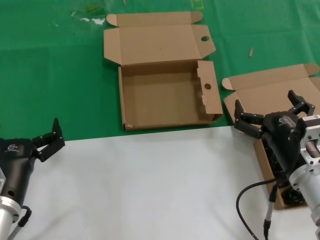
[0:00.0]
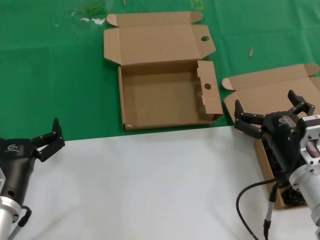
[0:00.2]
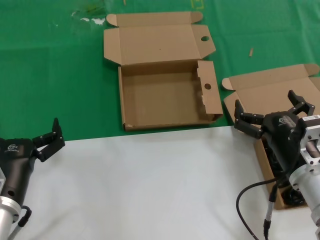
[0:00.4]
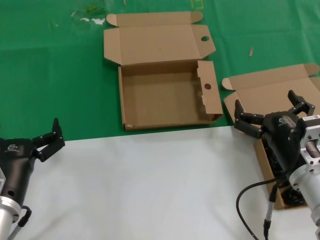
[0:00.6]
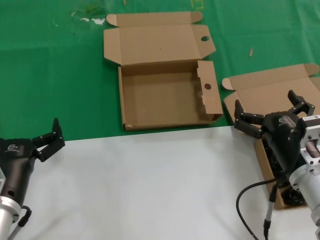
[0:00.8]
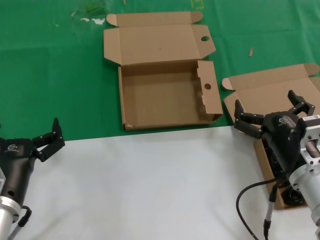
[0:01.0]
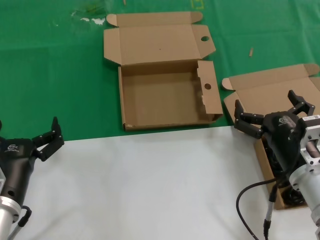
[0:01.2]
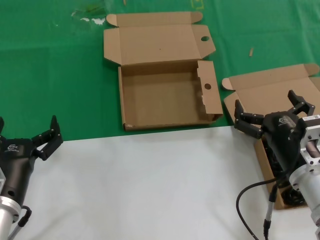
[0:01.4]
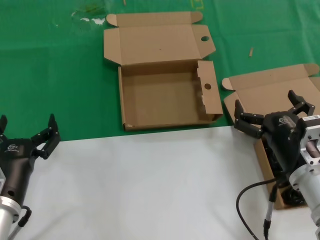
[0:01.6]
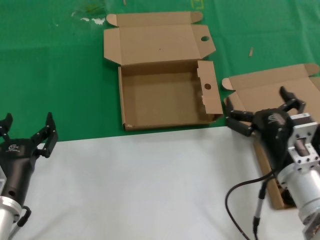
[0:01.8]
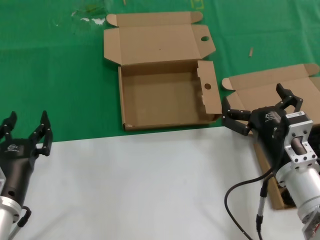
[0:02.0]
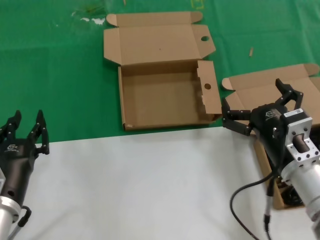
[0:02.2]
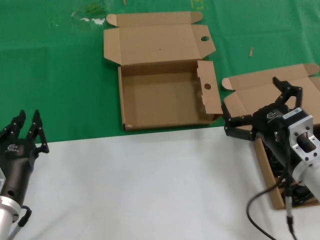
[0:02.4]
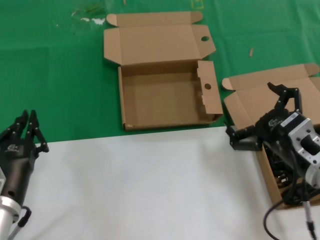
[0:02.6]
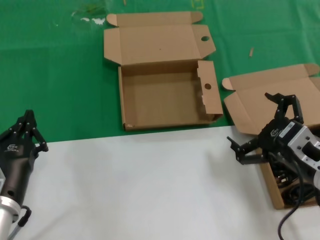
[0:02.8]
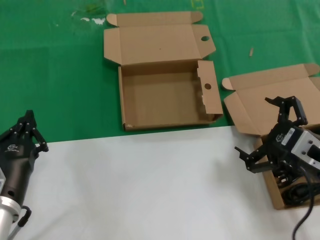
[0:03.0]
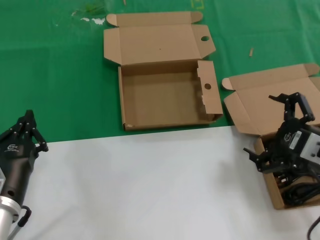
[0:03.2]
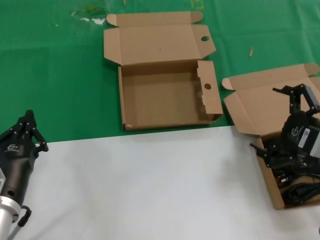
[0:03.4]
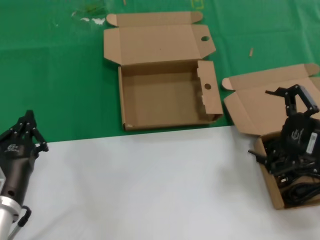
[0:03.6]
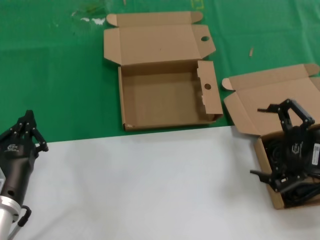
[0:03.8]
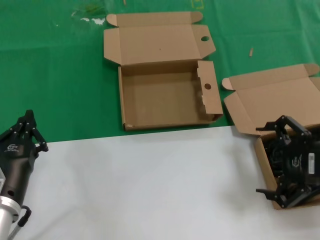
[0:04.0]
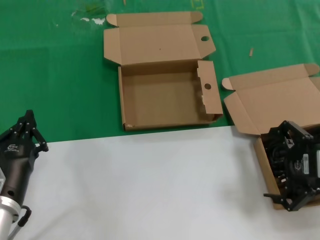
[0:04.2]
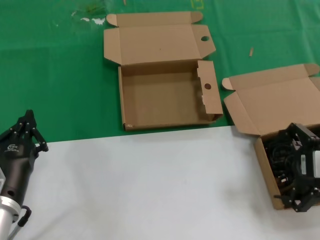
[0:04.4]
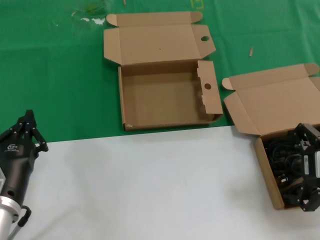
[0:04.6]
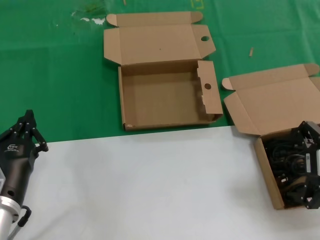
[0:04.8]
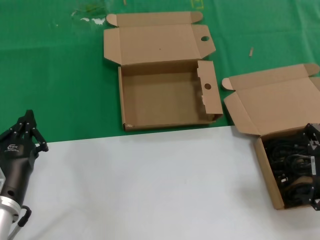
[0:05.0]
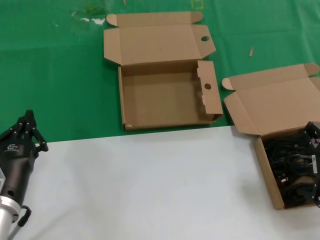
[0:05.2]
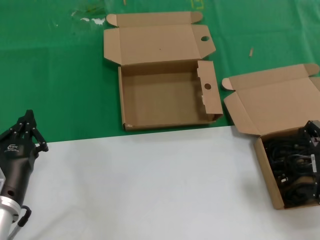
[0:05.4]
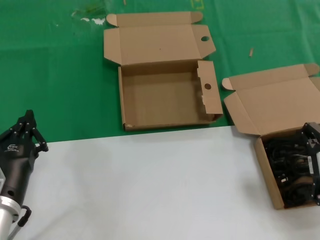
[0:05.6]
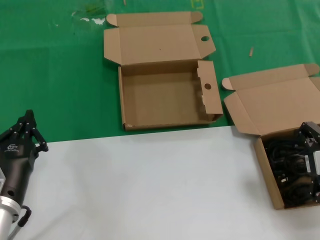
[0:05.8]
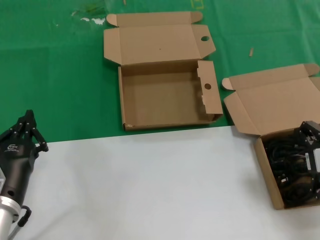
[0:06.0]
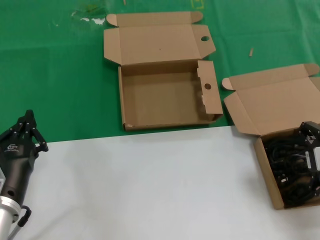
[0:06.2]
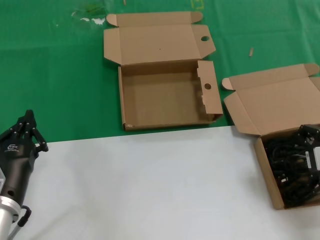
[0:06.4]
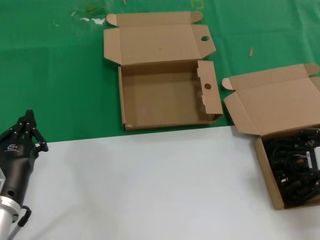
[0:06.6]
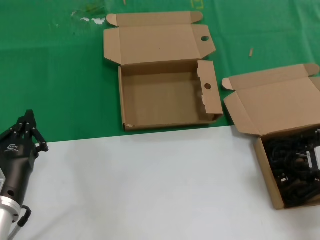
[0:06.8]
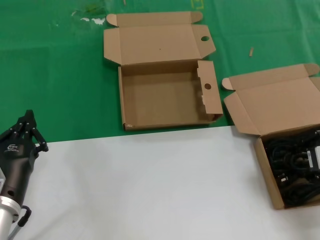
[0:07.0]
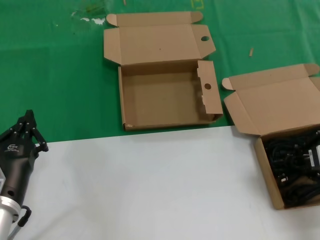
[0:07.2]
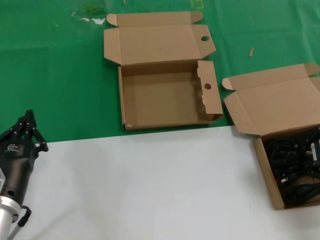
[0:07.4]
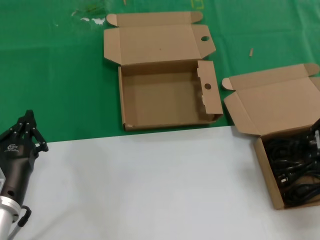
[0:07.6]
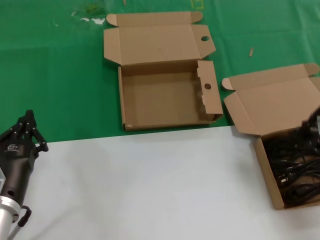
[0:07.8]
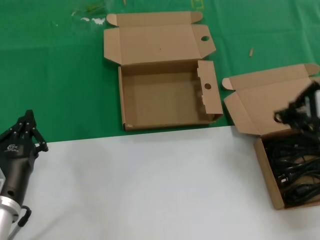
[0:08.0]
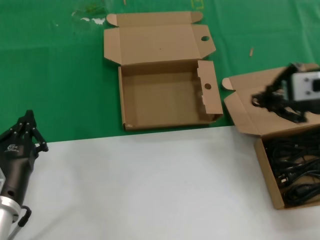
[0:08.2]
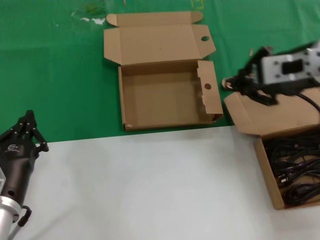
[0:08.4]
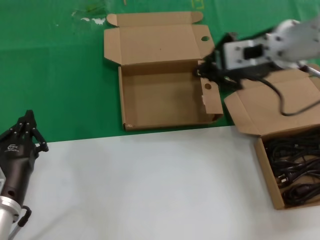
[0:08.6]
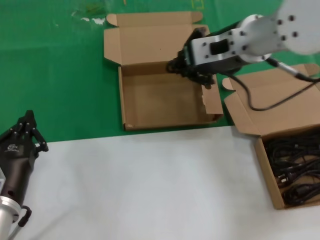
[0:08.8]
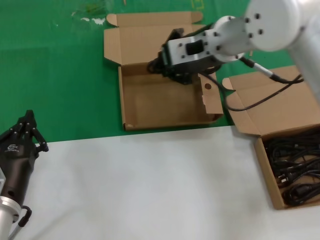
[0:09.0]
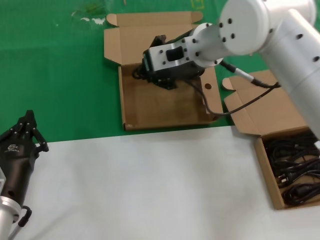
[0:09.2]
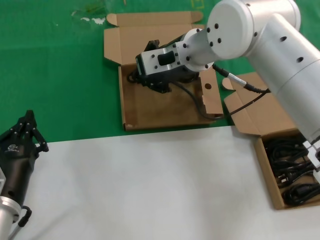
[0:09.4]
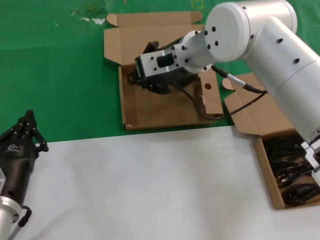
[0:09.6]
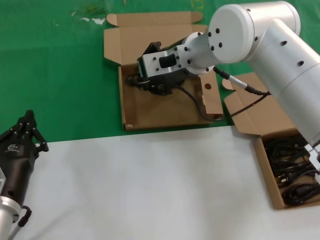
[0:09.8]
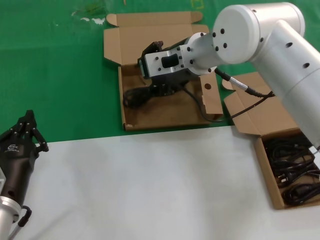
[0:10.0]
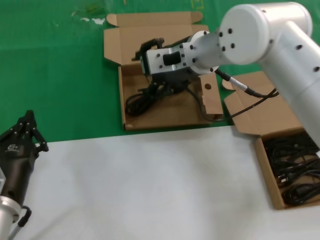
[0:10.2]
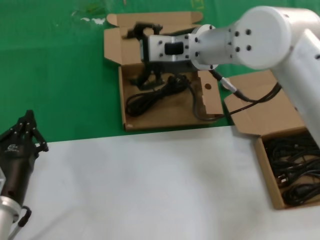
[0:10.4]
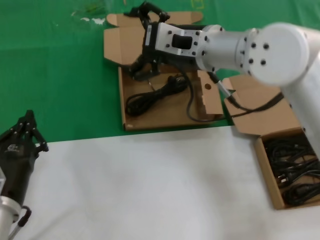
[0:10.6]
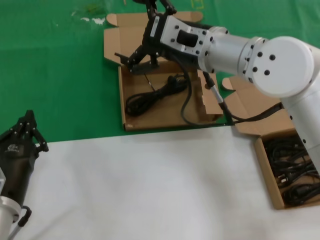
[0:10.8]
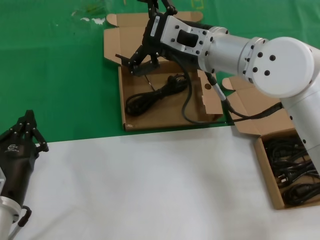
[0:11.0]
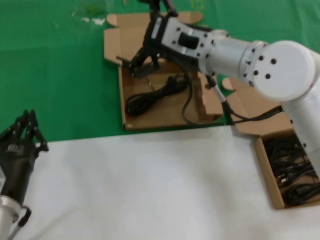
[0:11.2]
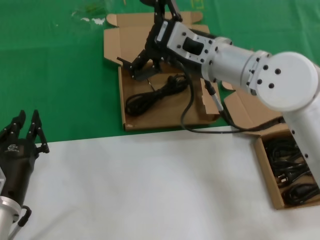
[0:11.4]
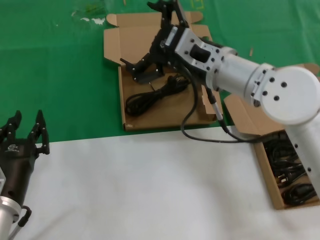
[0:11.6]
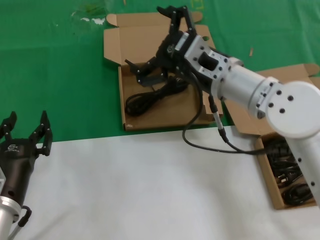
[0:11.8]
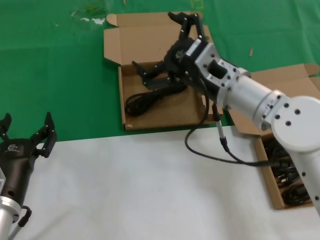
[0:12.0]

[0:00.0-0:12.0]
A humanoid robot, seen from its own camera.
Task of the whole recording: take the parts from the box containing them and put them into an empty box.
Step, 0.0 to 6.6 s: Grasp the data cable.
Step, 6.8 to 10.2 s: Place the data cable in the another box.
0.0 to 1.6 s: The two hands keep their place.
1.6 to 3.0 s: The right hand is displaced upward and to the right by roughly 10 cm.
3.0 to 4.4 s: The right hand moves upward, roughly 5 cm.
4.4 to 6.0 s: The hands make only small movements.
6.0 to 7.6 s: The hands make only small movements.
7.6 to 9.0 s: The right hand heads to the left and forward, covering approximately 25 cm.
10.4 to 12.0 s: The right hand is displaced downward and backward by about 10 cm.

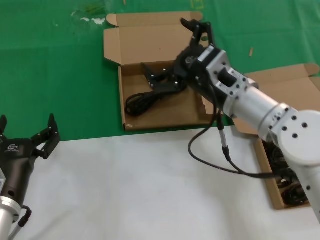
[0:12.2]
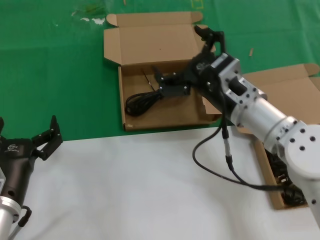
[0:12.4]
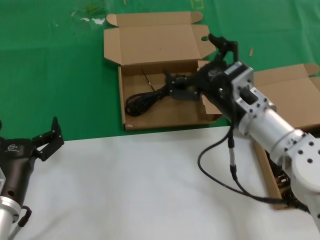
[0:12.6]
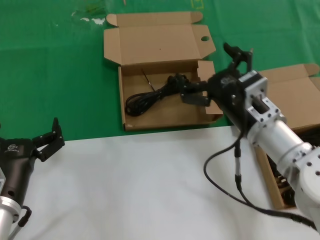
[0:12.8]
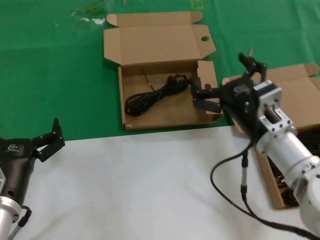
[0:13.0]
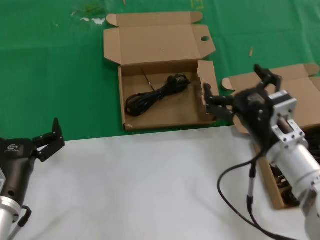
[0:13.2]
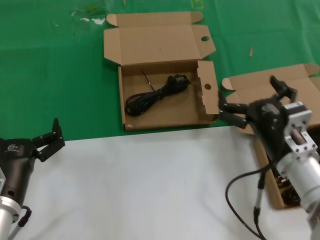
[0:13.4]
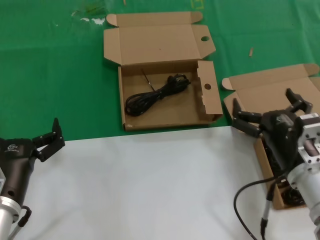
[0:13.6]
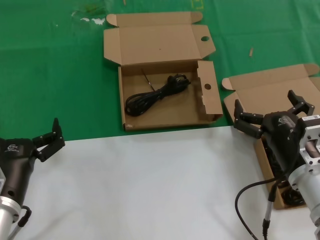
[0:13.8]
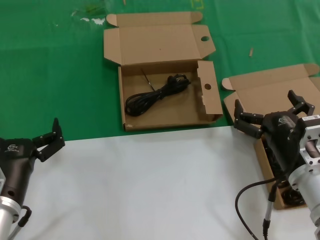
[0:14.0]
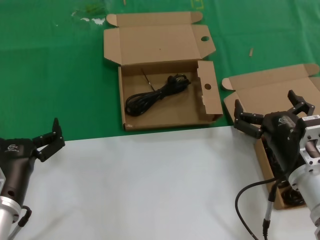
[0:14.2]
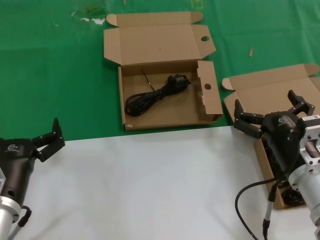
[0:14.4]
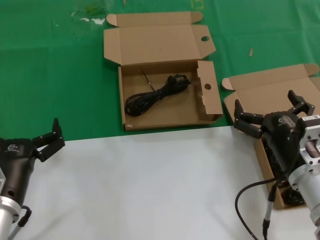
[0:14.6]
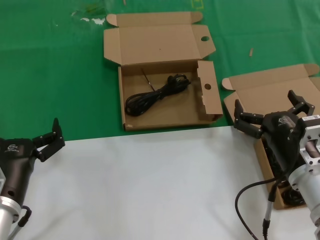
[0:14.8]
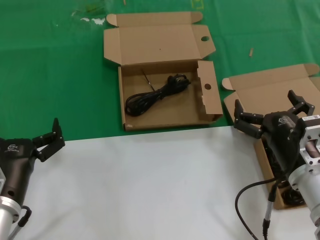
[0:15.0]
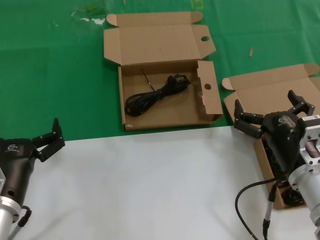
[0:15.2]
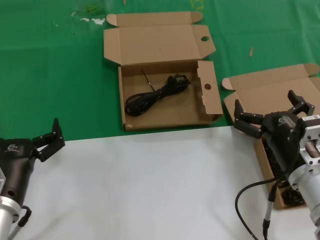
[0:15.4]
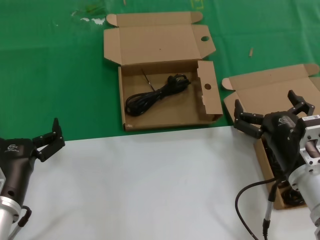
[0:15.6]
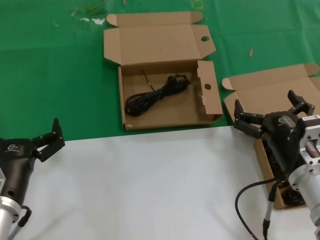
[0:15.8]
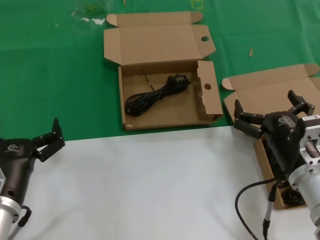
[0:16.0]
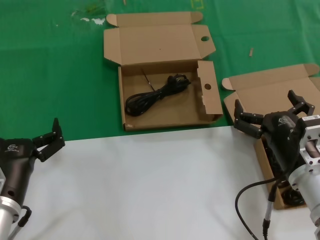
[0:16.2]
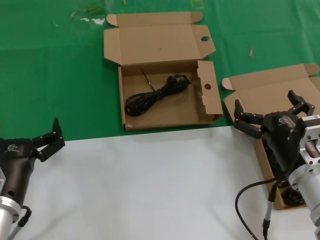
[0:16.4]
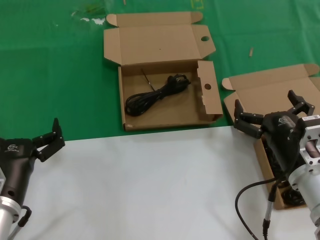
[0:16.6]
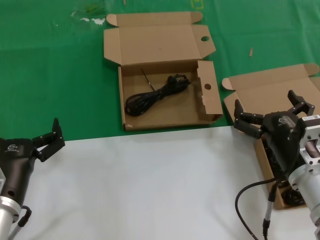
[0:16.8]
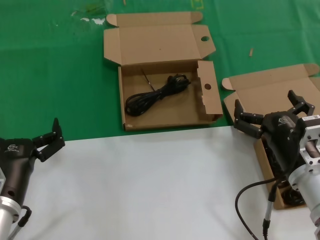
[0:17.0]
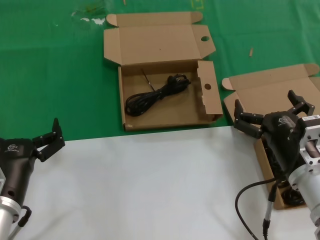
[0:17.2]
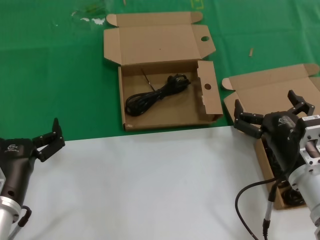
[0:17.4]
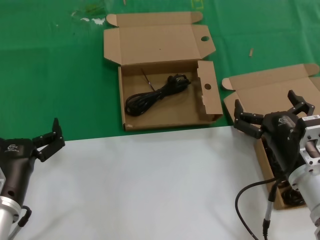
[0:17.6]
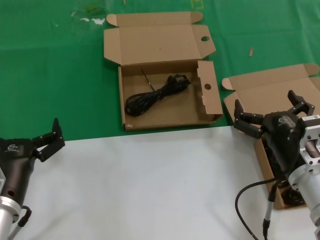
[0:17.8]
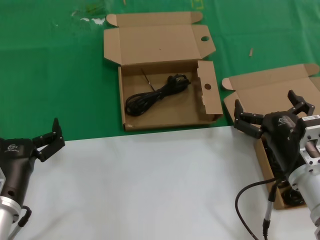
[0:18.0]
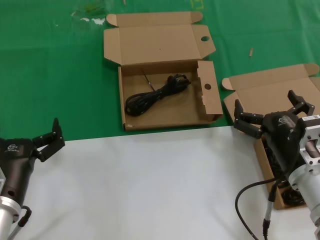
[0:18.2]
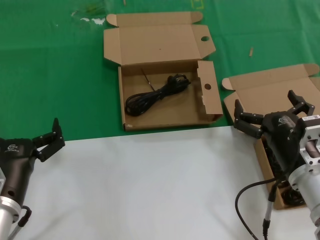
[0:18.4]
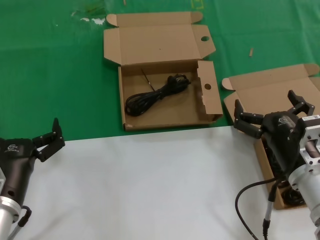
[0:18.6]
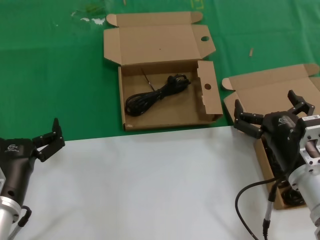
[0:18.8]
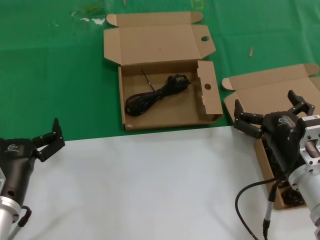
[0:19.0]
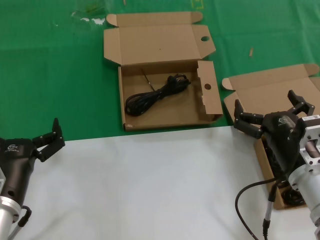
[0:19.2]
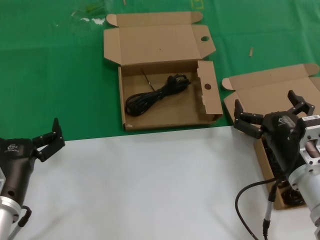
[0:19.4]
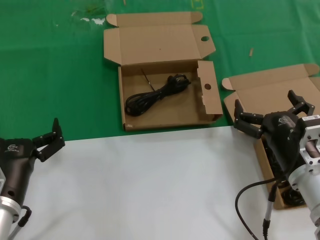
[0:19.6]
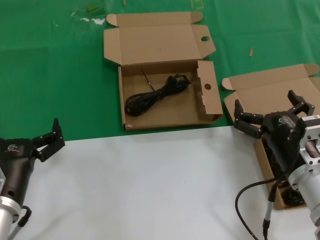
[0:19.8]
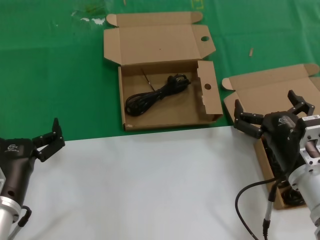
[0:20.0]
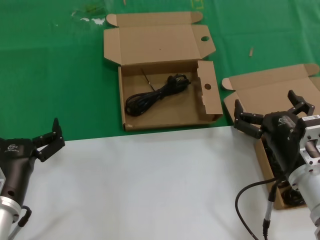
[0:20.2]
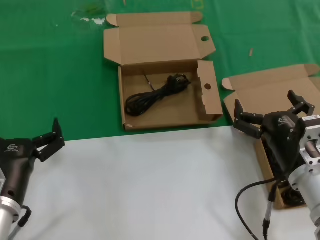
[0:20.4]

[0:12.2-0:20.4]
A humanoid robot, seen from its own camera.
Task of the whole recording: take the parts from the box containing them and put them into an empty box.
12.2 to 13.8 s: The right hand goes roughly 20 cm backward, downward and to the right.
13.8 to 20.4 s: The two hands keep their place.

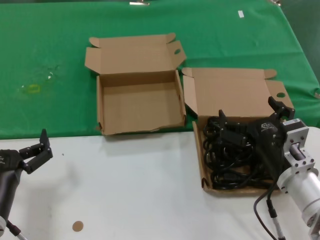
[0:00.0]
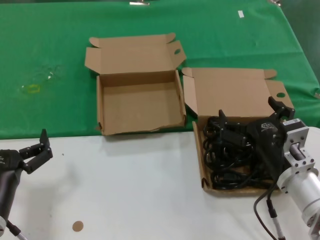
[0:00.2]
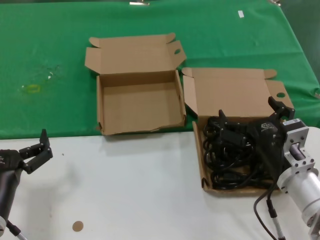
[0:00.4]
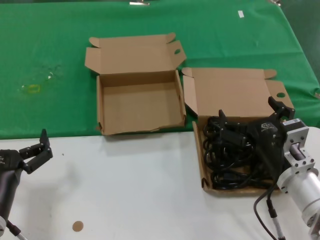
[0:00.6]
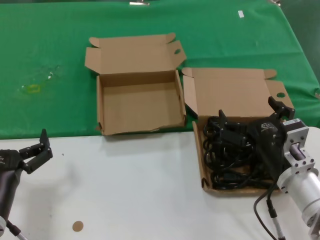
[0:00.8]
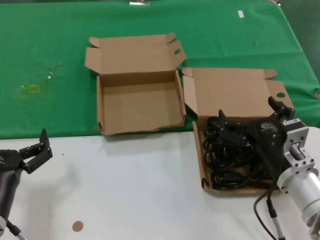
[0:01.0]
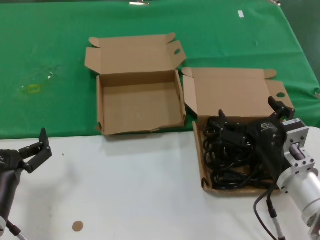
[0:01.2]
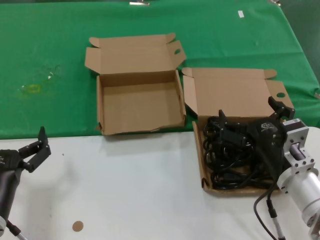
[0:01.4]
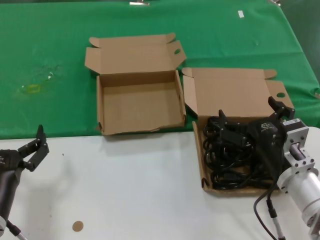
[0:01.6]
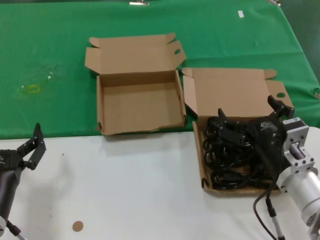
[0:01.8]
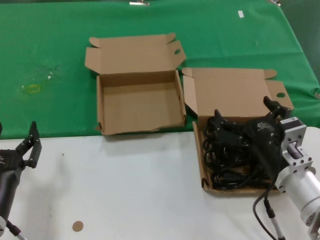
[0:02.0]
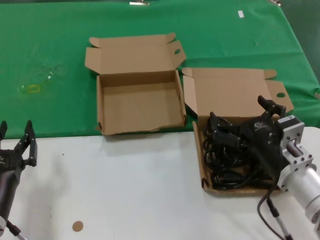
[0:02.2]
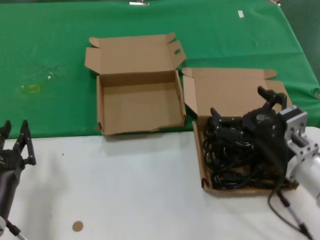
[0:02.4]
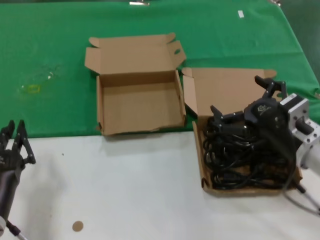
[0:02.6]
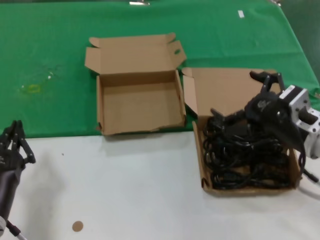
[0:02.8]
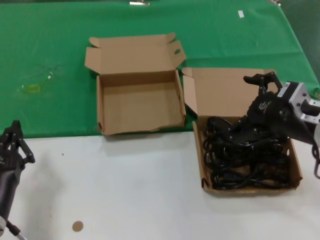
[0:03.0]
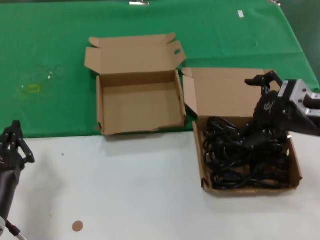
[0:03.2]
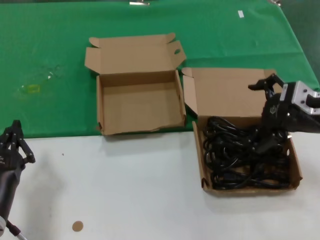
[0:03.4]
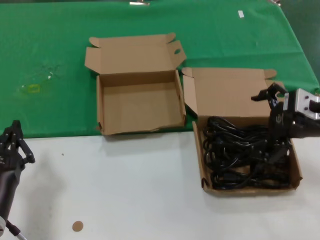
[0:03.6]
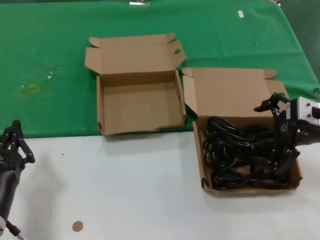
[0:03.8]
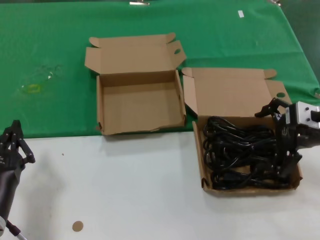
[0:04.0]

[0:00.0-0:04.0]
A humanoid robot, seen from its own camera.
Task of the whole recording: take the parts from the box containing them and put them into an empty box.
0.0 to 1.4 s: Both hands stay about where they are.
1.4 to 2.6 s: The right hand goes about 5 cm upward.
2.6 to 4.0 s: The right hand shifts approximately 15 cm upward, to the right and forward.
